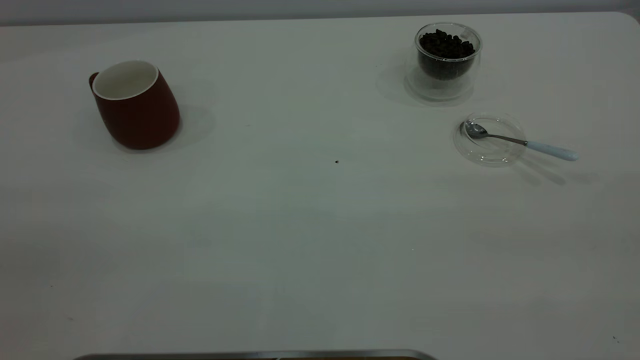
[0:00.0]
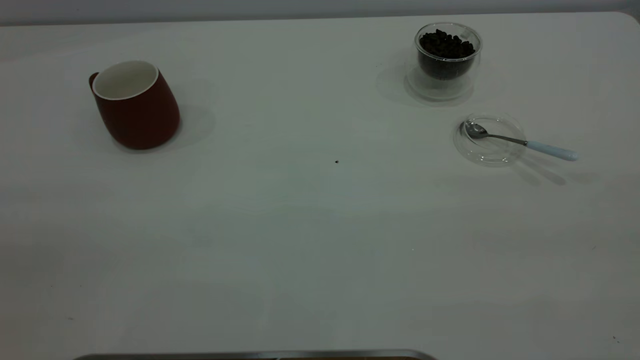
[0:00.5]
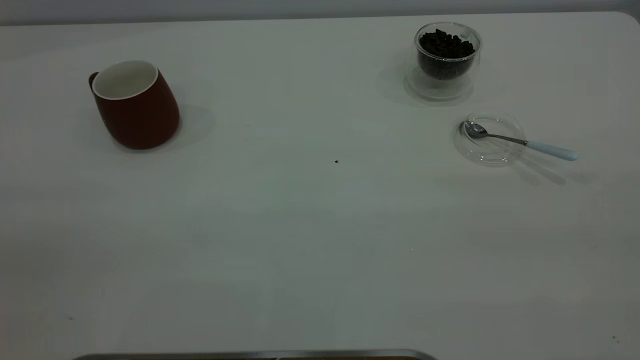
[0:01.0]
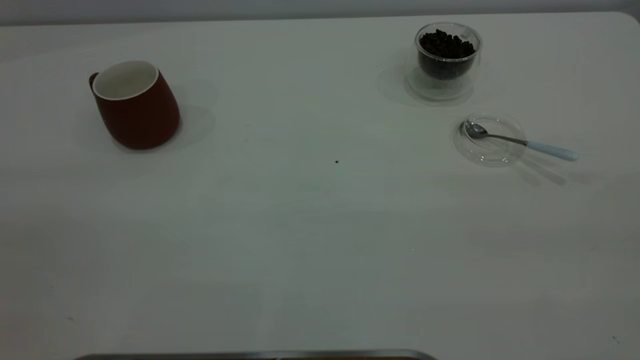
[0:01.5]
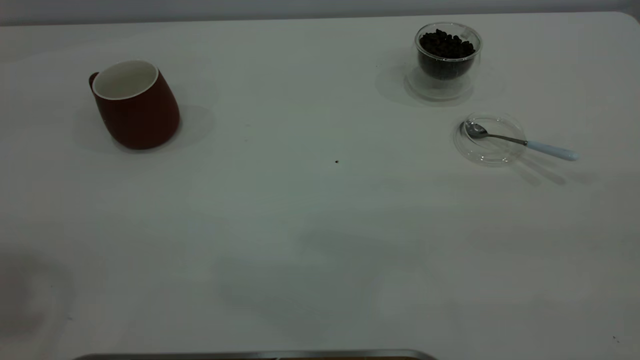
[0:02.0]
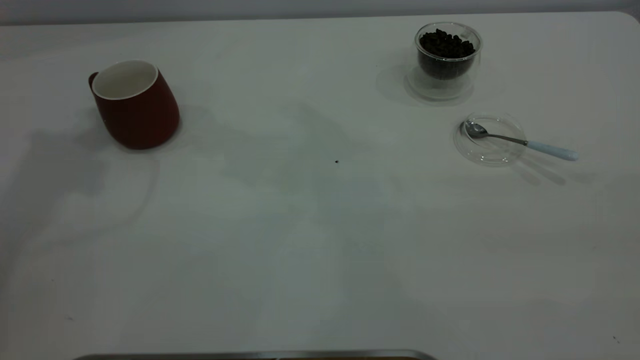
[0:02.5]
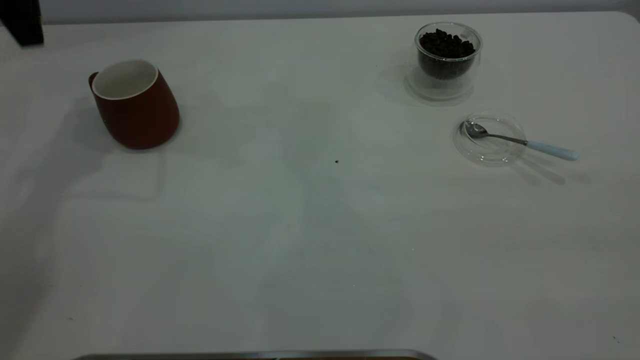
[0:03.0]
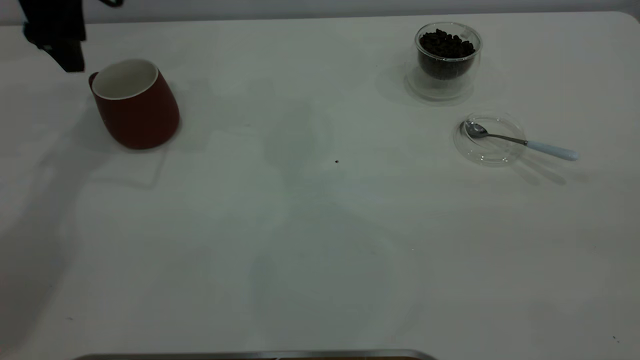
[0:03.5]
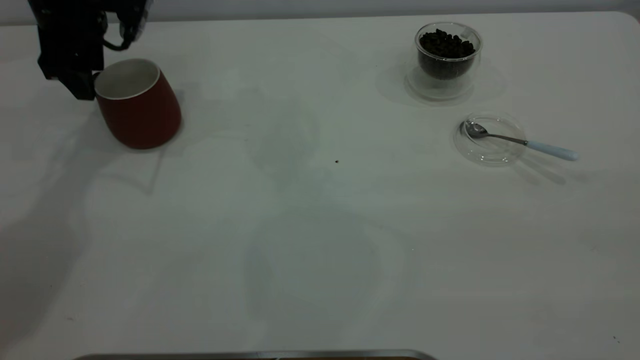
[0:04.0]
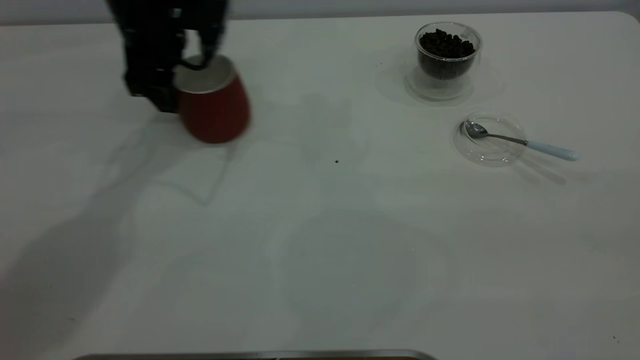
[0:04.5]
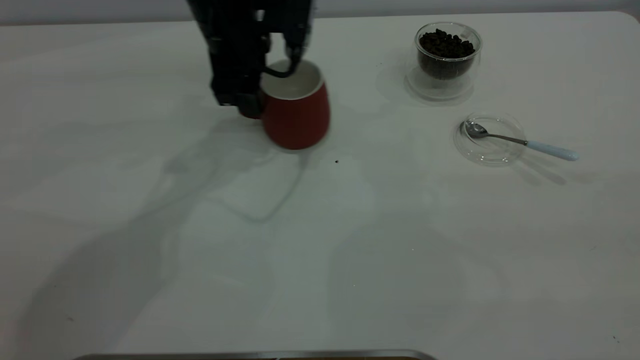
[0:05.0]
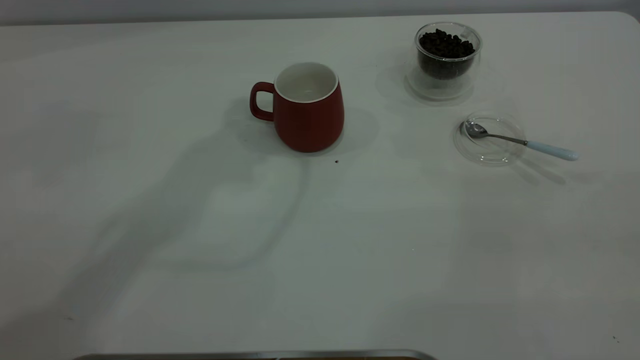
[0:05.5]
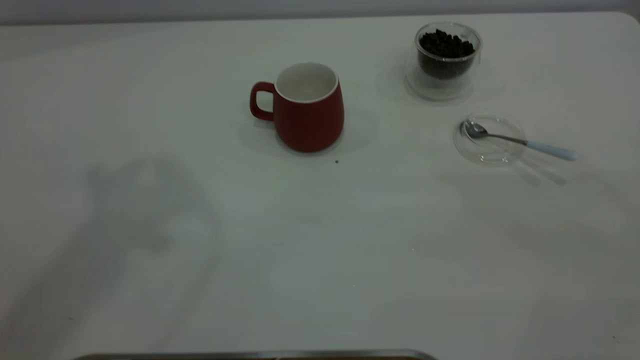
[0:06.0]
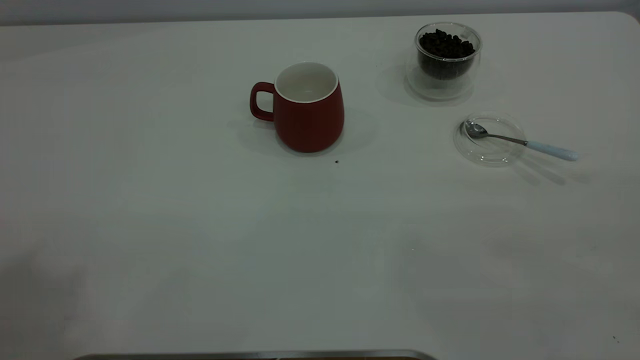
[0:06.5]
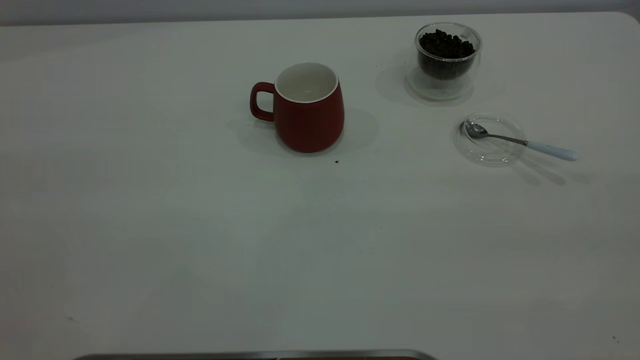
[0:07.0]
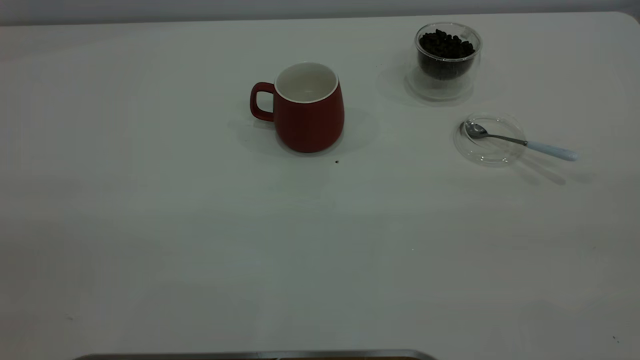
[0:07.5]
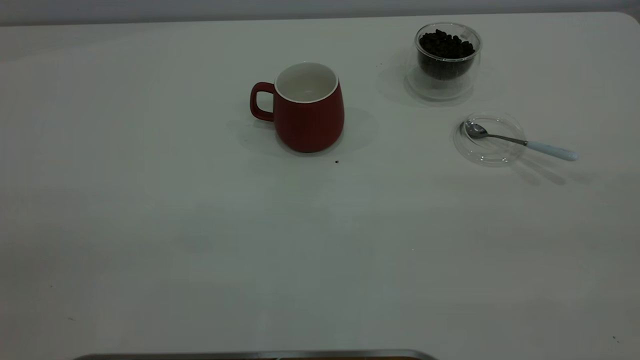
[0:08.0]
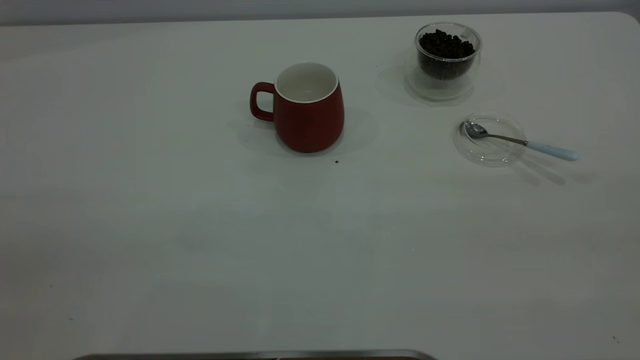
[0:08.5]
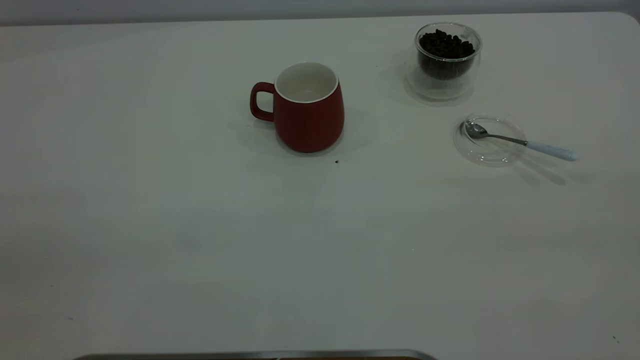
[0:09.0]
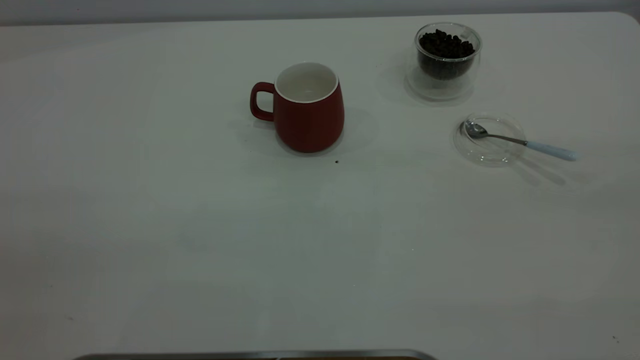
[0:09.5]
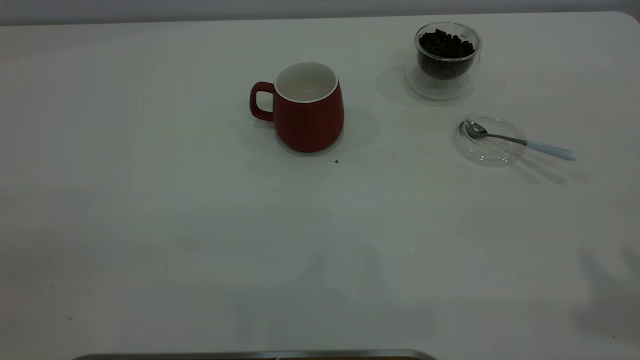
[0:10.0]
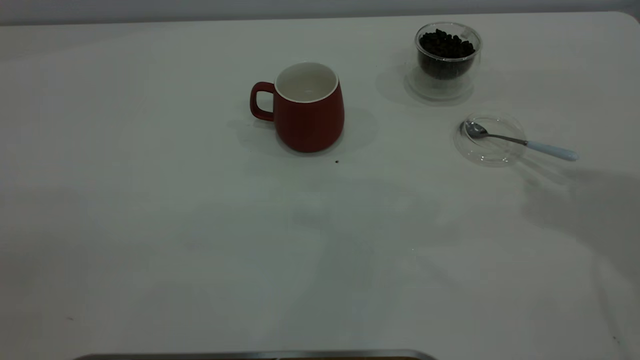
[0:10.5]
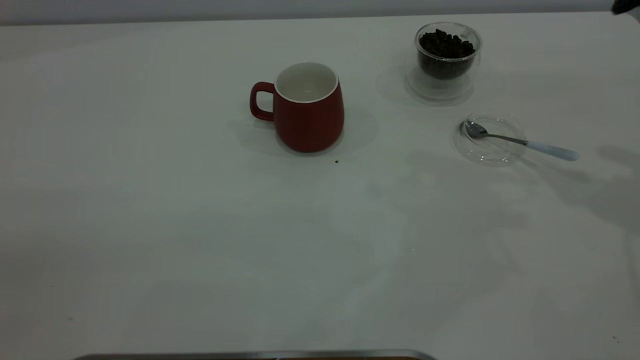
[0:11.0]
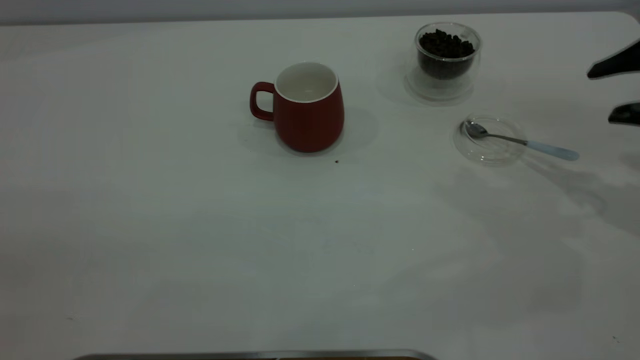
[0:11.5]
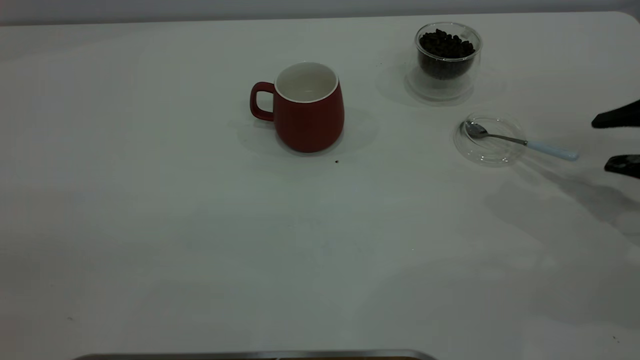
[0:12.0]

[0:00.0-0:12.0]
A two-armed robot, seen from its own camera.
Task of the whole recording: the left gripper place the red cup in the center of the table, the right gripper take the blue spoon from the cup lid and scoop out the coffee beans from the coffee cup and put them into the red cup, the right gripper put the spoon back into the cup lid.
Step, 0:00.0 to 0:05.0: Move the cup to the center of view.
0:02.0 to 0:04.0: The left gripper heads forward and downward, covering roughly 40 cm.
0:04.0 to 0:06.0: The left gripper goes some 50 cm upward and backward.
0:10.0 to 0:12.0: The right gripper goes approximately 30 cm downward and forward.

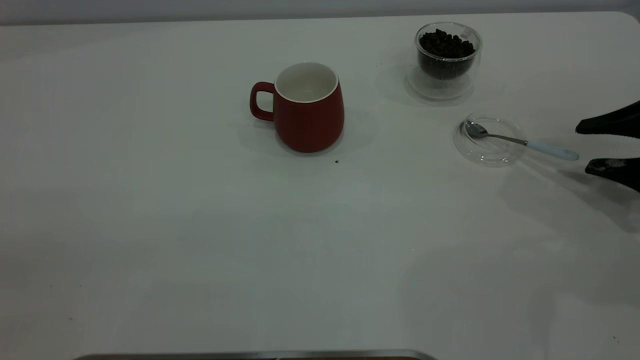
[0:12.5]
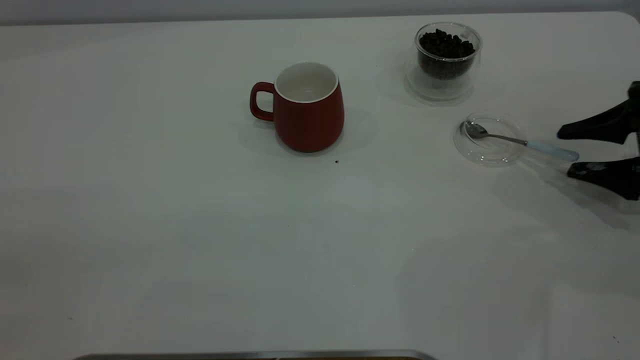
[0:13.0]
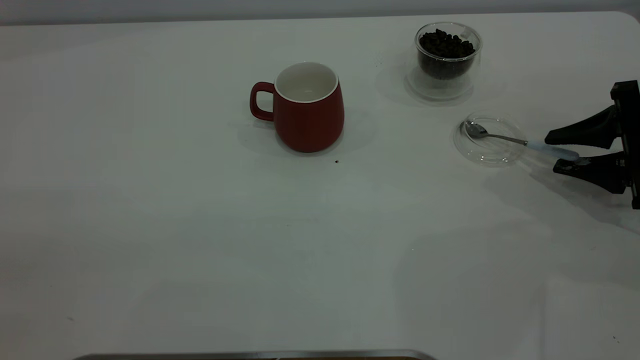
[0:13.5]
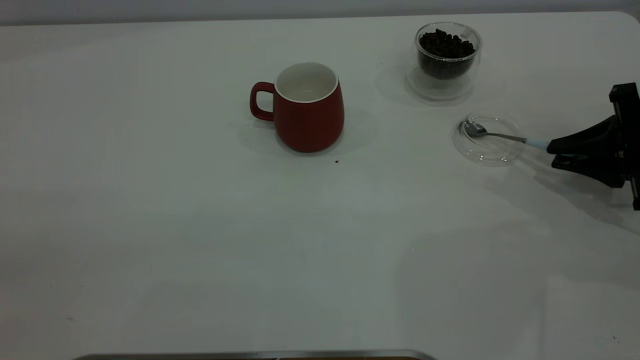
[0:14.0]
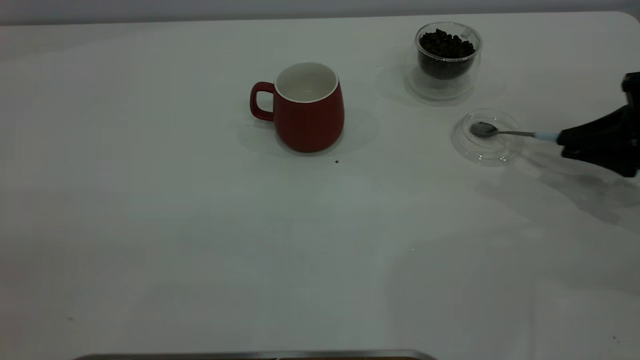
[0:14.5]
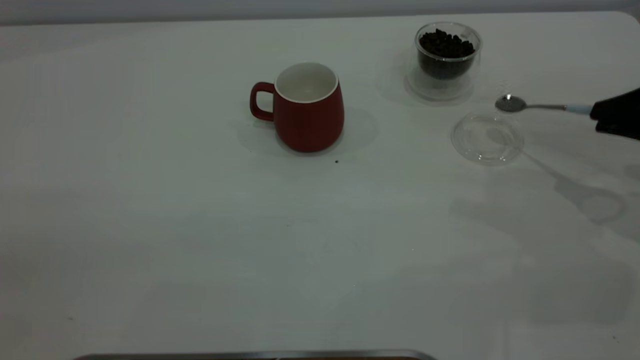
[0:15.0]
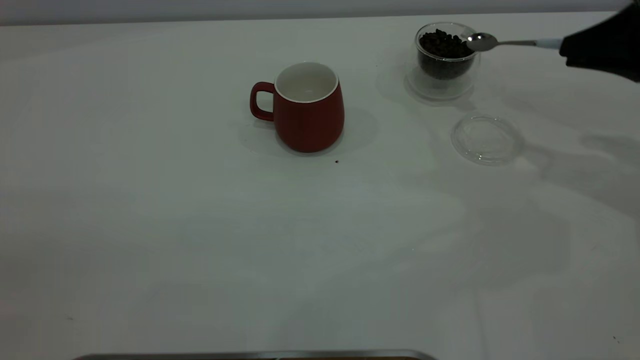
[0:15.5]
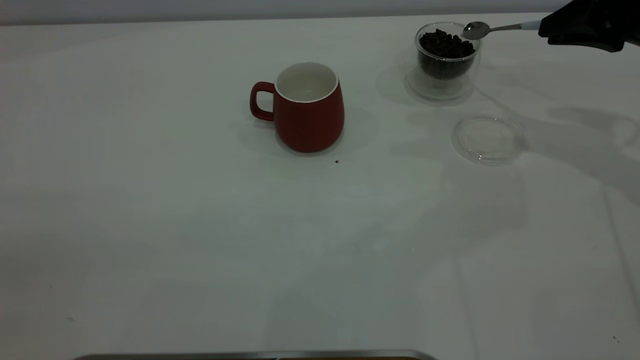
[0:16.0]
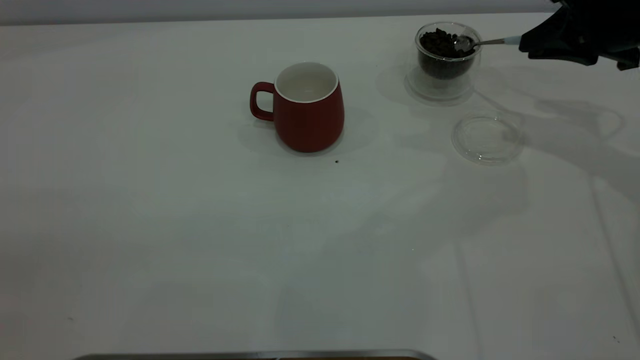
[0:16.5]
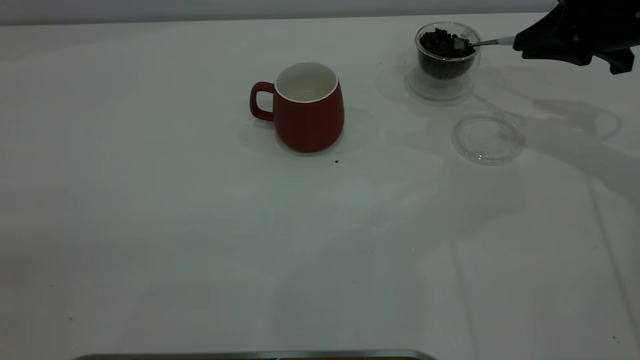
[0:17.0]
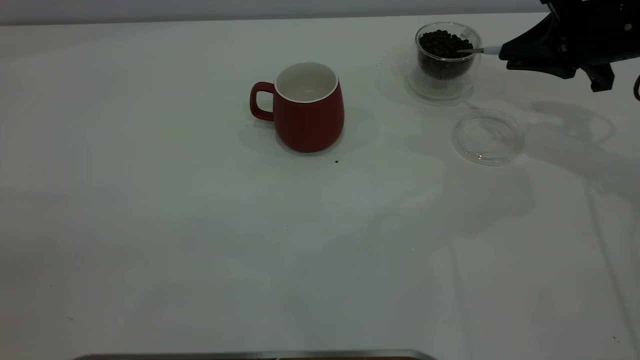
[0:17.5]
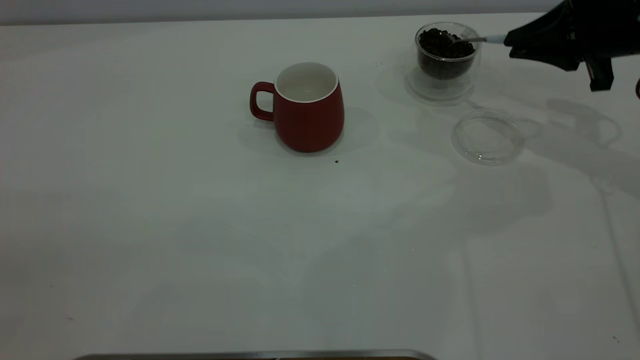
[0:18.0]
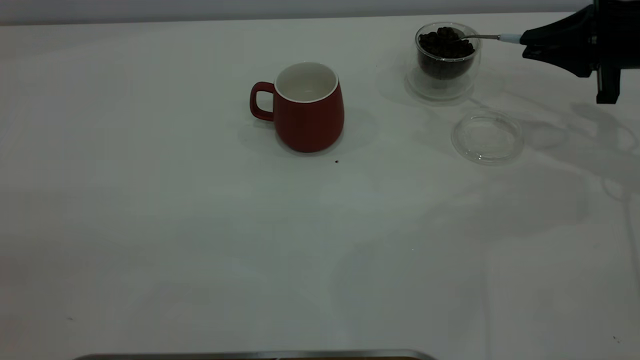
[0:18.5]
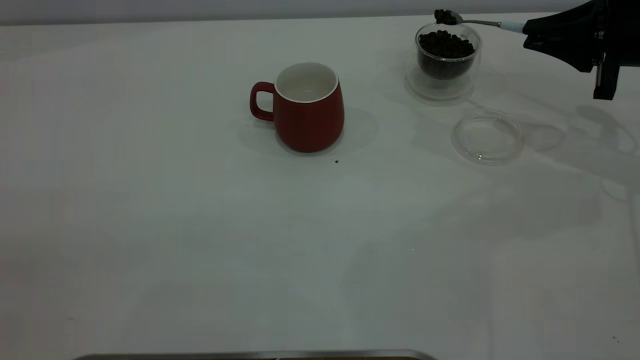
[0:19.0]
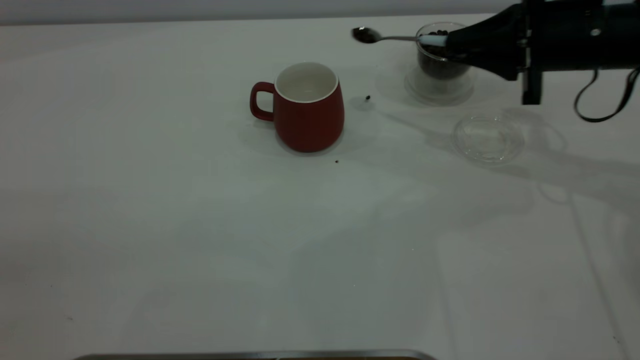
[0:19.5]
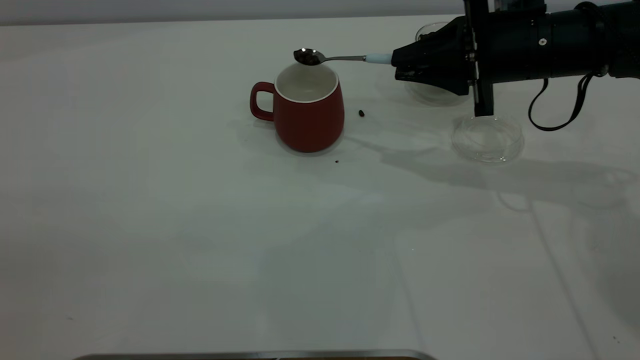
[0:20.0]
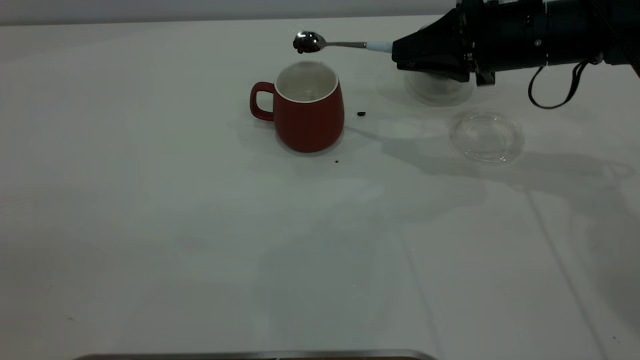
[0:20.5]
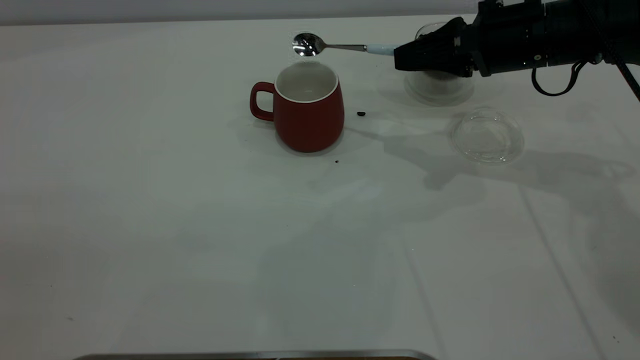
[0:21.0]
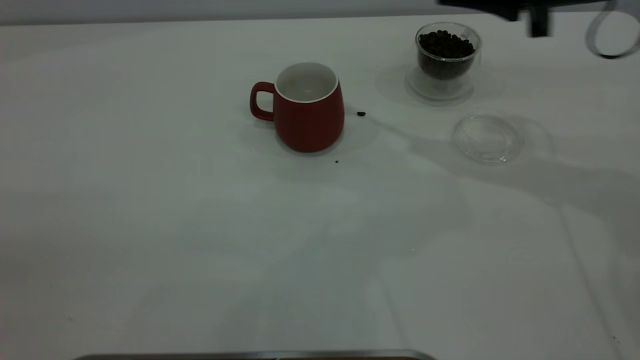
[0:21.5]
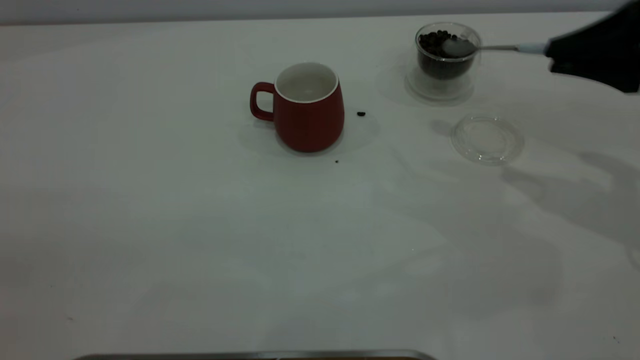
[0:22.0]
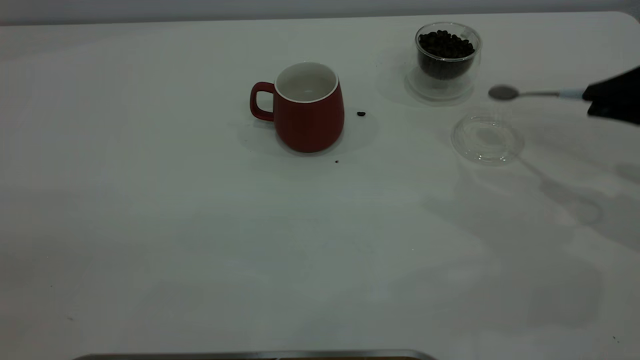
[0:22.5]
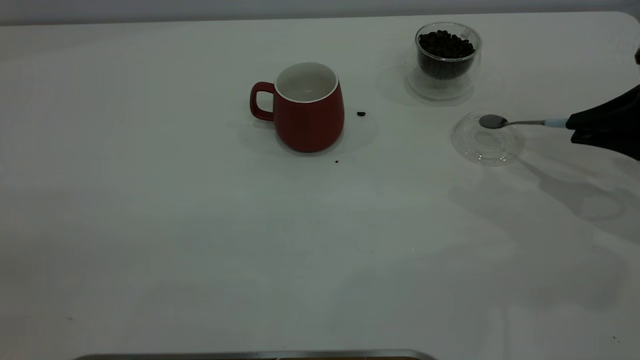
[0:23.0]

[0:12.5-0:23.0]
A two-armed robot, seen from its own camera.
Task of the whole recording: the left gripper place the red cup in the center of the table, the right gripper take the blue spoon from the cup lid and scoop out the coffee beans from the coffee cup and put them into the red cup, the right gripper put the spoon back into the cup lid.
Step, 0:12.5 to 0:15.0: Pick up the spoon.
Step, 0:15.5 to 0:21.0: Scoop a spoonful of beans into the cup.
0:12.5 to 0:14.5: The right gripper closes its fingers.
0:14.5 to 0:16.5: The right gripper shifts roughly 15 cm forward, upward and to the left.
0:19.0 to 0:21.0: The right gripper is displaced to the left by some 10 cm.
0:21.0 to 0:23.0: The right gripper heads to the right and backward, covering approximately 20 cm.
